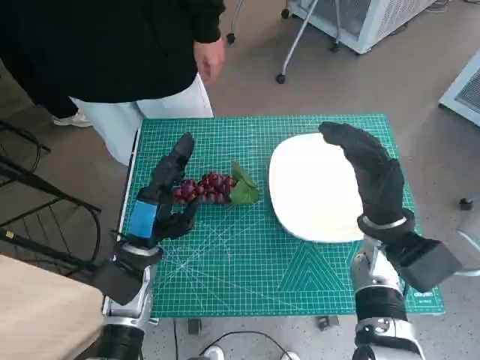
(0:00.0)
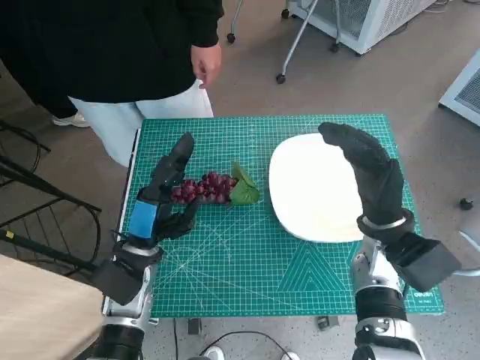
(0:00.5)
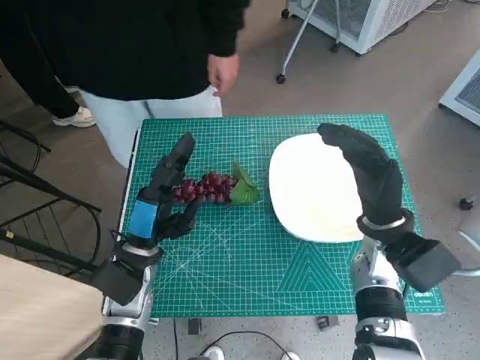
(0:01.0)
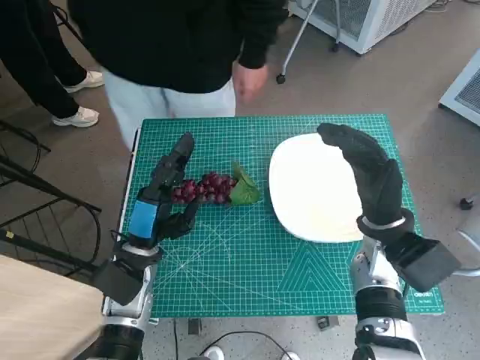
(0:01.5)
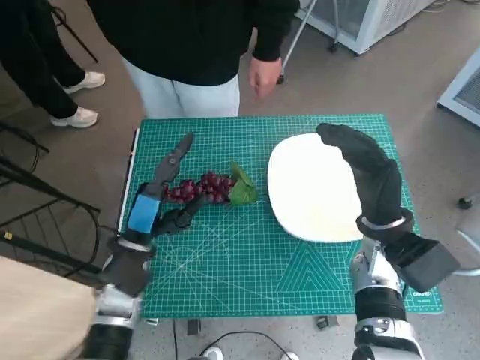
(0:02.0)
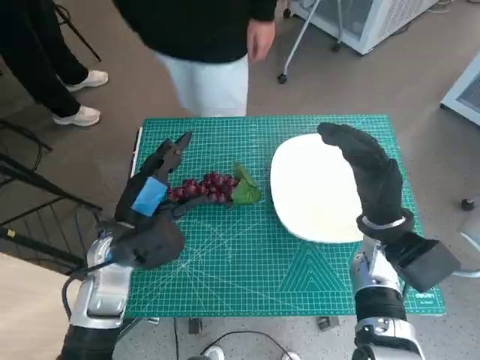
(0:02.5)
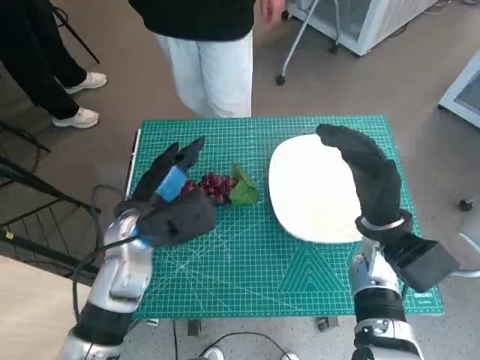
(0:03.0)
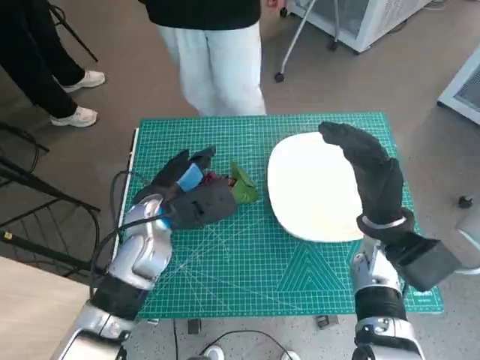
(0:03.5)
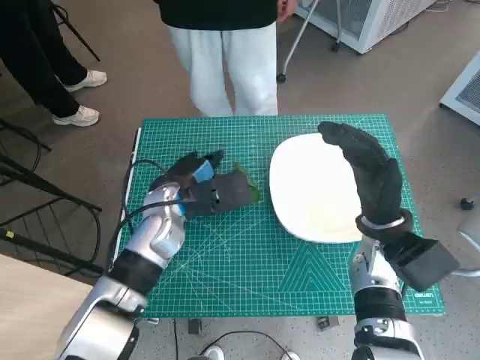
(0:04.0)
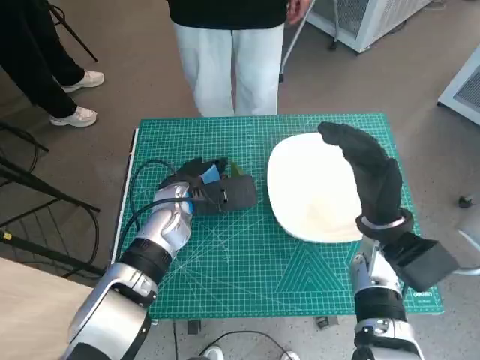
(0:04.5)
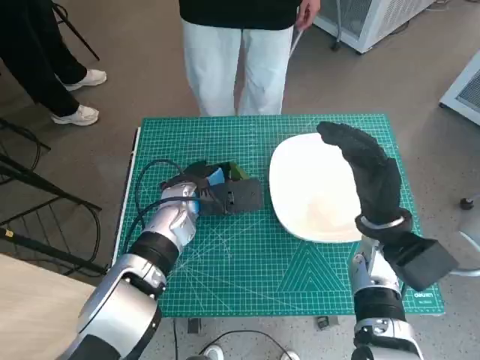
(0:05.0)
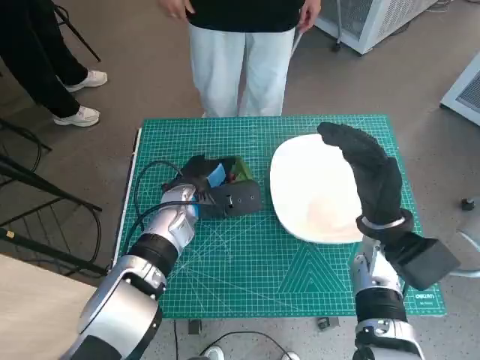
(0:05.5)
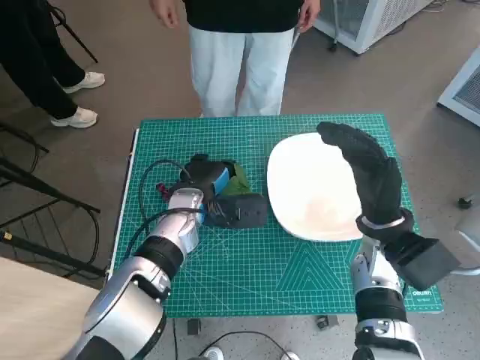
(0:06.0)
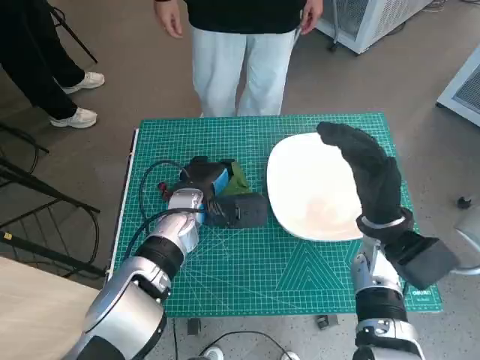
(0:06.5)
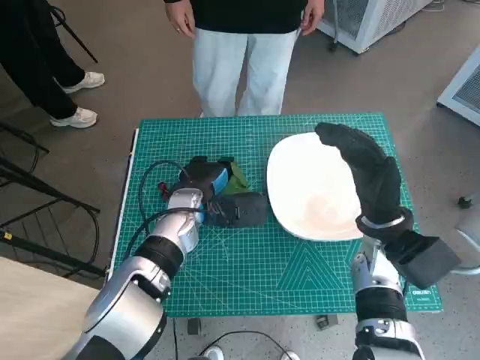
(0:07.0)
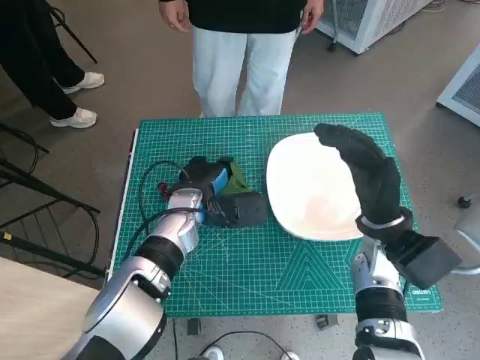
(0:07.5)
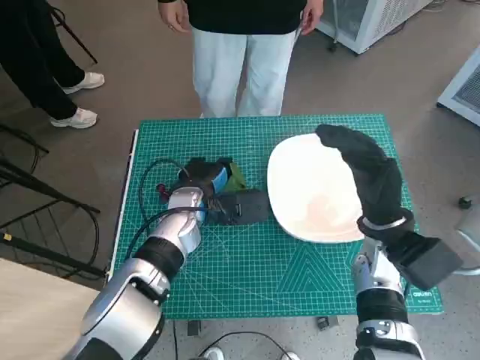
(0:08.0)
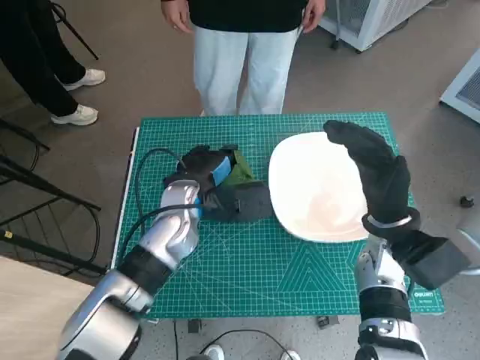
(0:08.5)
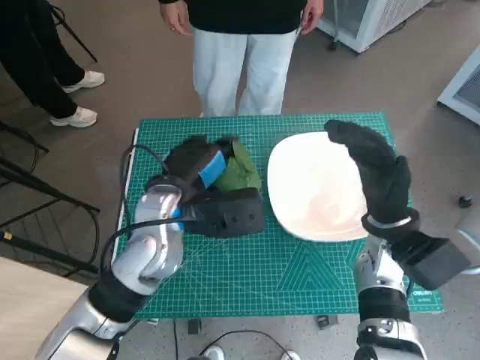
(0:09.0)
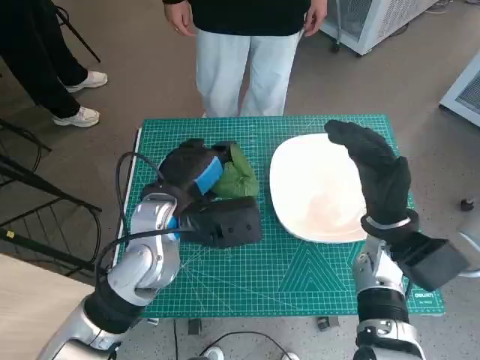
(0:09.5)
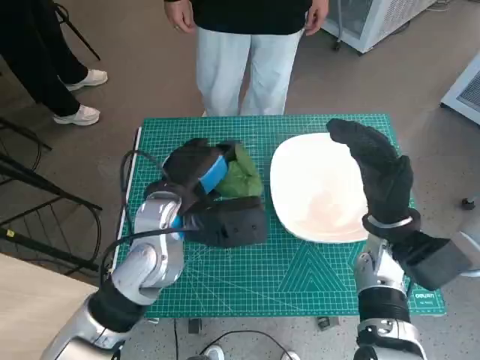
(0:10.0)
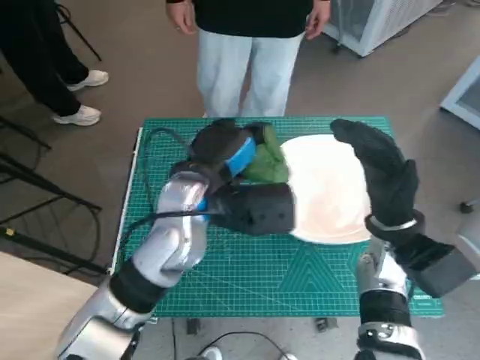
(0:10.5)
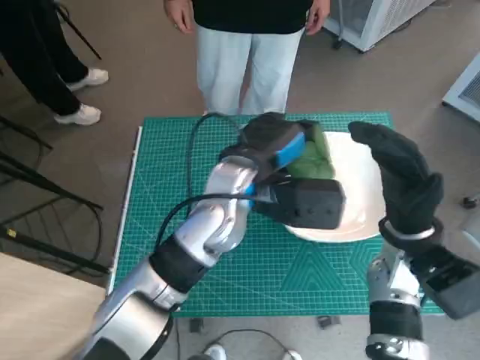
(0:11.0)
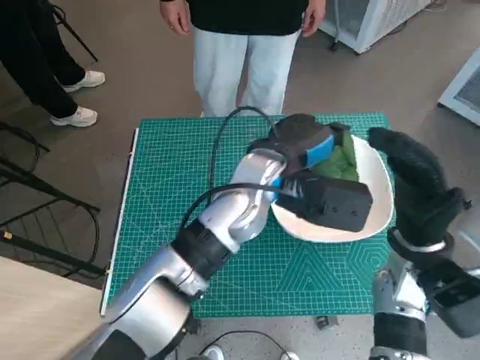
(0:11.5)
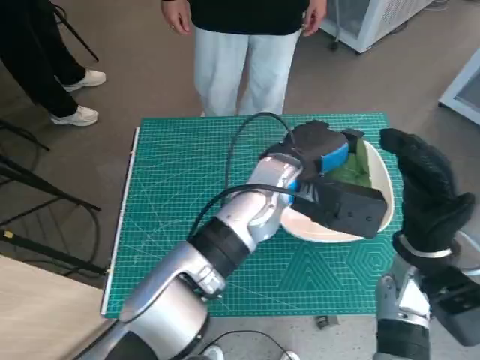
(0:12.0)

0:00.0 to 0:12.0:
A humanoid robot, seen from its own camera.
Task of the whole recording: Pick up the grapes and put them on the plate.
Step, 0:00.0 to 0:07.5: Grasp the grapes with left hand.
0:02.0 to 0:04.0: The left hand travels forward by some 10 cm.
0:04.0 to 0:06.0: There are only small adjustments of the hands.
0:06.0 to 0:08.0: Neither hand changes place.
0:08.0 to 0:10.0: The left hand moves upward and backward, about 10 cm.
0:10.0 to 0:12.0: The left hand is displaced to the right by roughly 15 cm.

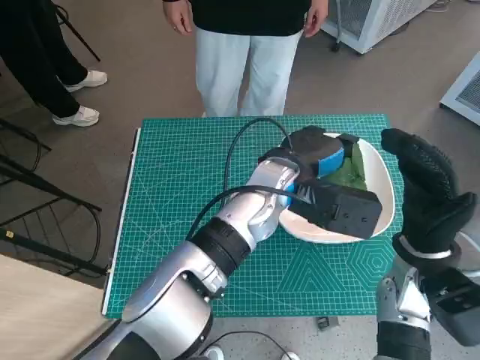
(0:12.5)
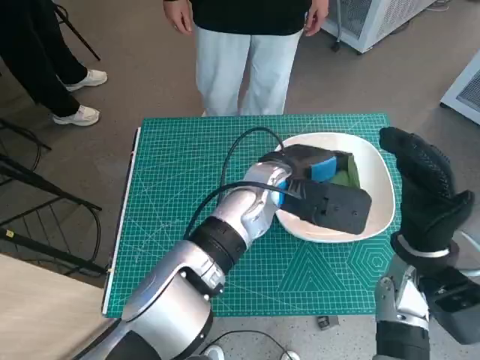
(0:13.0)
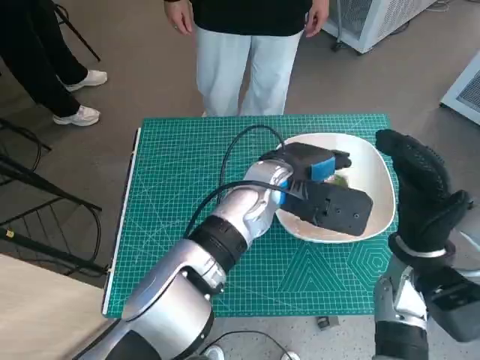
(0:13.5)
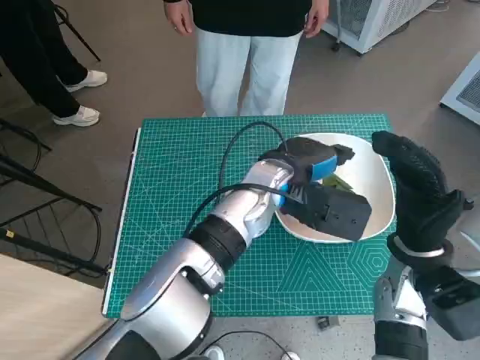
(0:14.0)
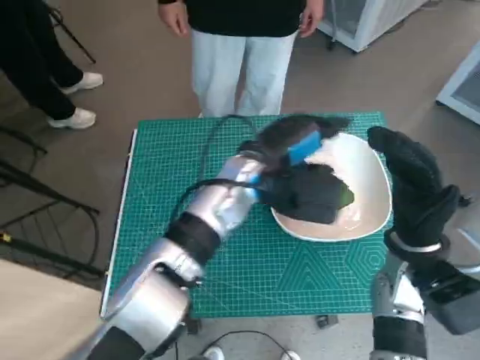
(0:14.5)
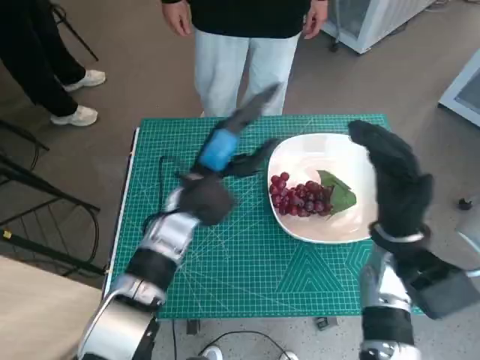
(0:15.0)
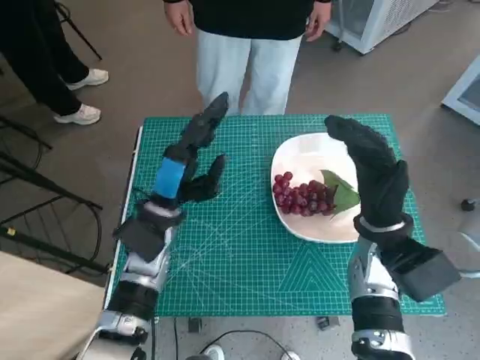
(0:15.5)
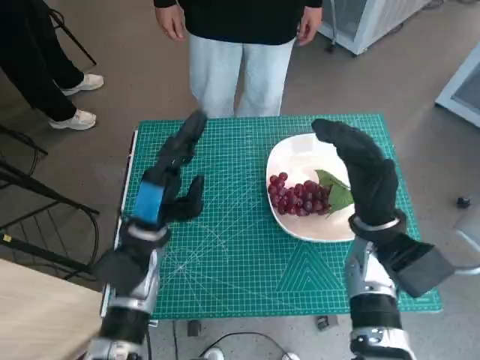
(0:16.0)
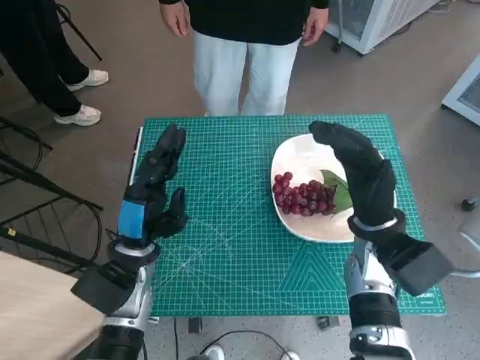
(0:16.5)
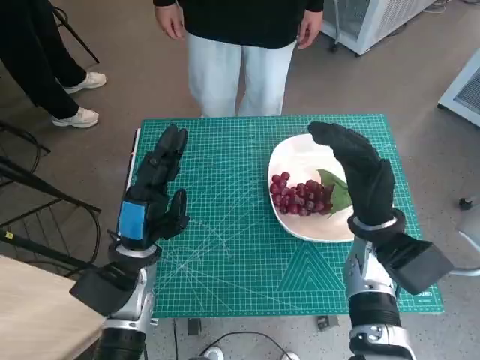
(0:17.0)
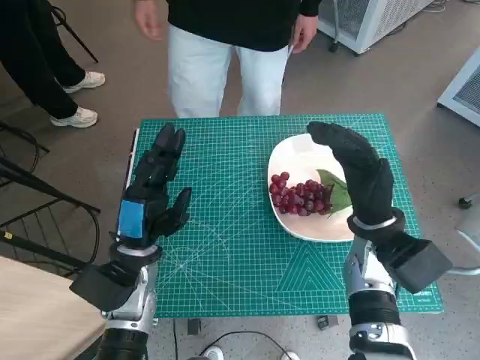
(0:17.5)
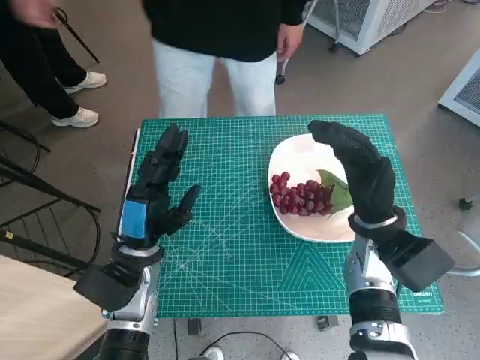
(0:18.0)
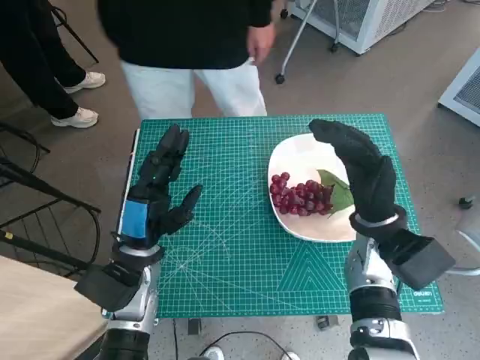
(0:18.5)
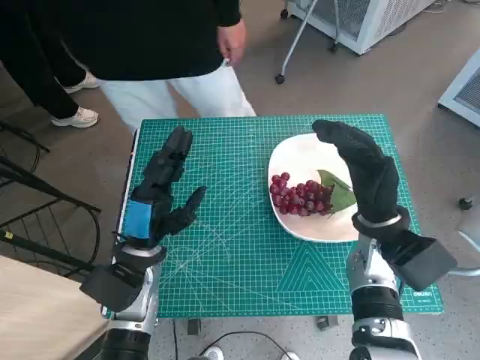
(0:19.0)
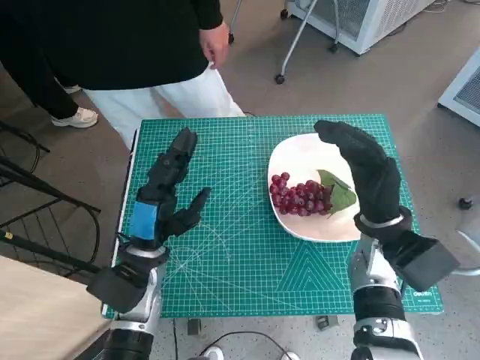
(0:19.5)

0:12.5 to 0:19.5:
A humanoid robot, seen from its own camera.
Task of the whole recording: Pick up the grapes and put them on the plate.
0:14.5 to 0:16.0: The left hand heads to the left, downward and backward, covering some 20 cm.
0:16.0 to 0:17.5: The hands stay close to where they were, moving slightly.

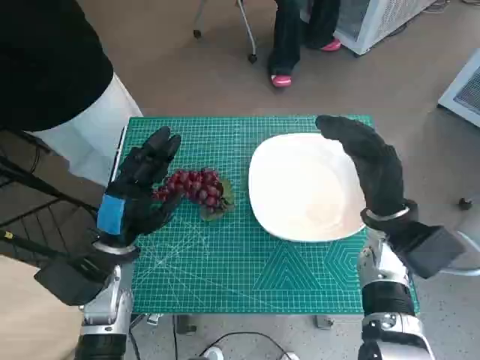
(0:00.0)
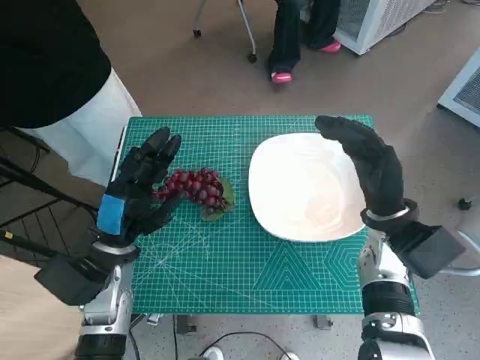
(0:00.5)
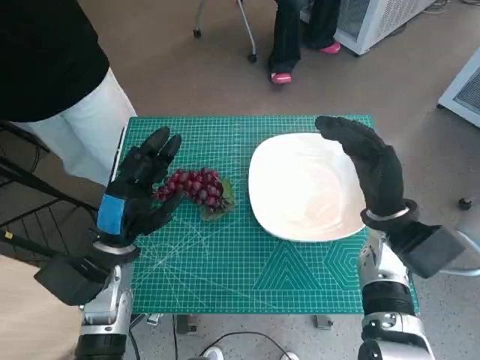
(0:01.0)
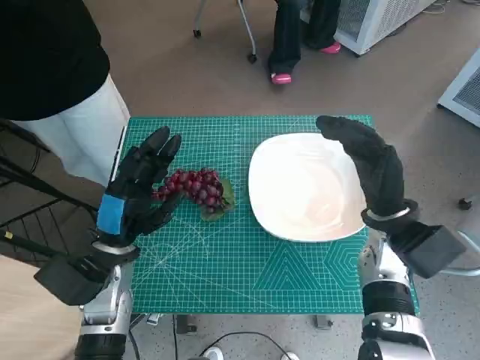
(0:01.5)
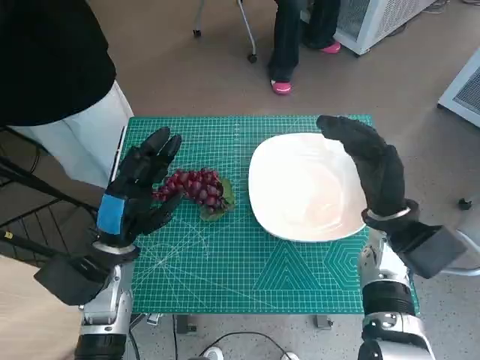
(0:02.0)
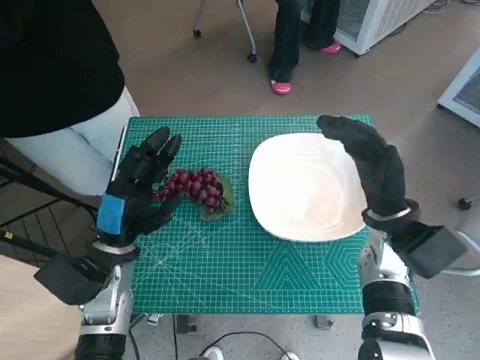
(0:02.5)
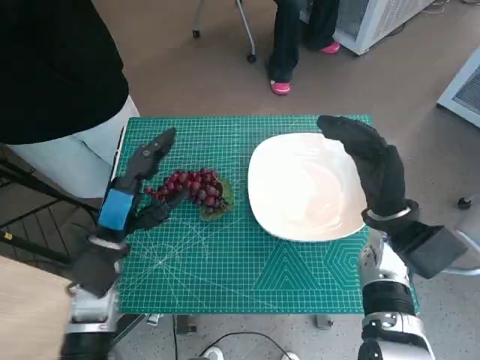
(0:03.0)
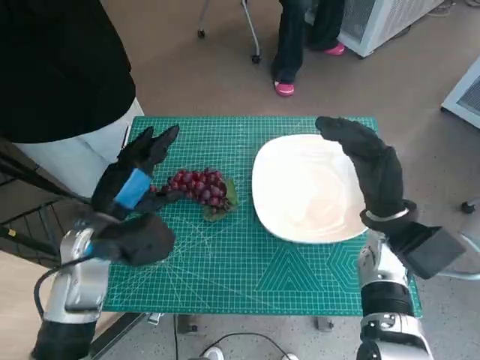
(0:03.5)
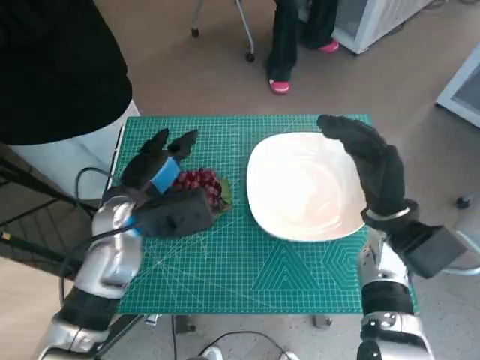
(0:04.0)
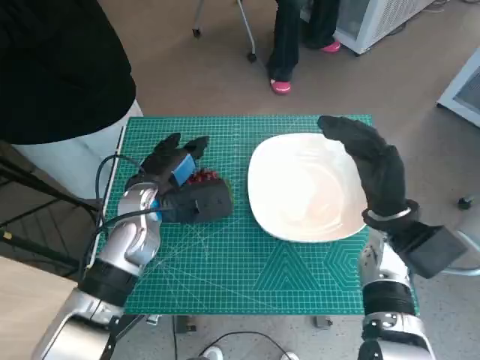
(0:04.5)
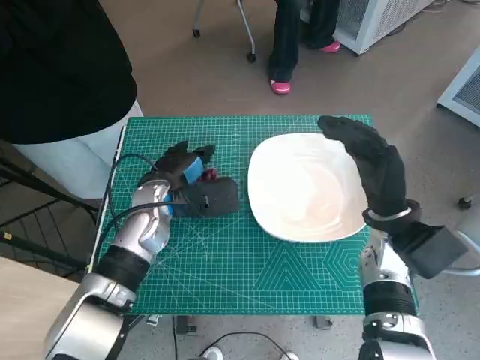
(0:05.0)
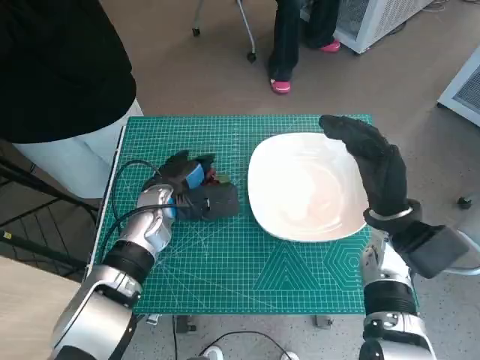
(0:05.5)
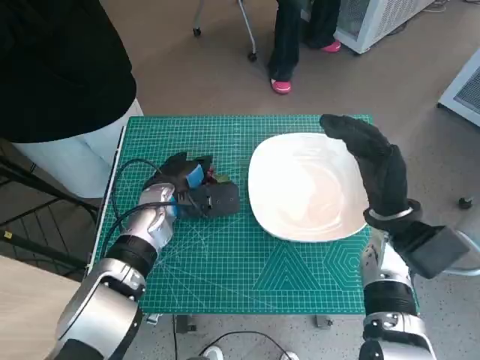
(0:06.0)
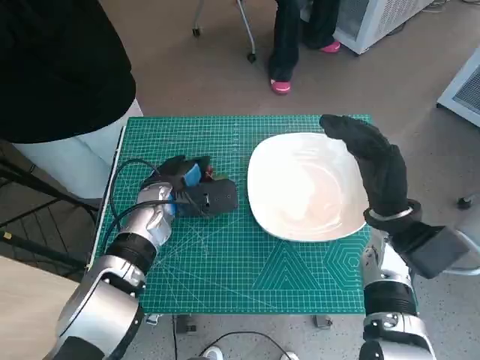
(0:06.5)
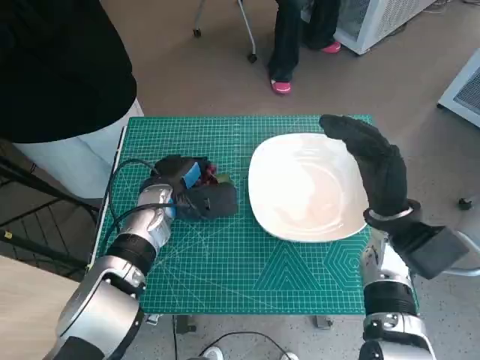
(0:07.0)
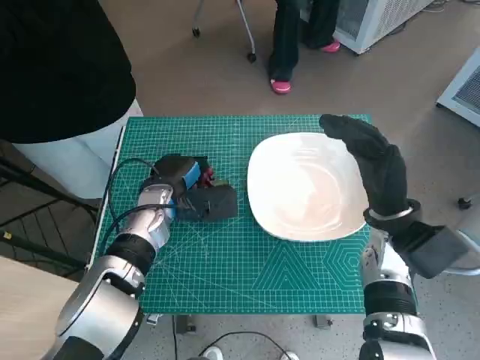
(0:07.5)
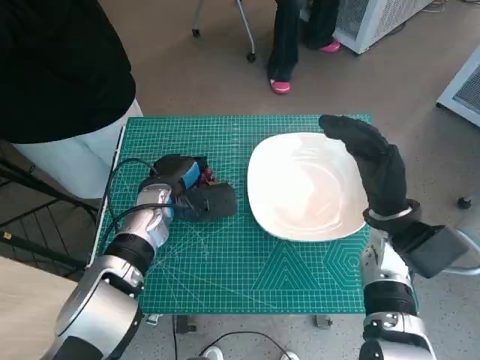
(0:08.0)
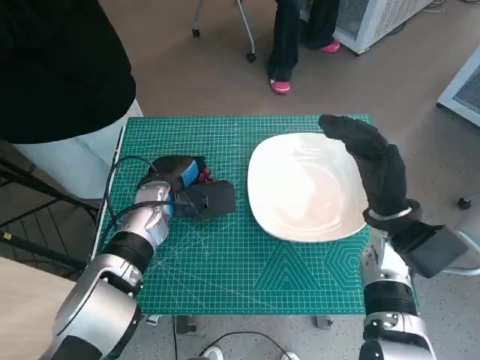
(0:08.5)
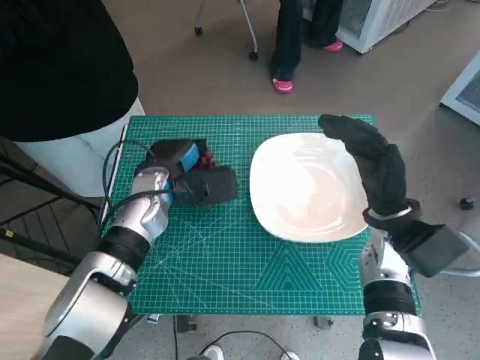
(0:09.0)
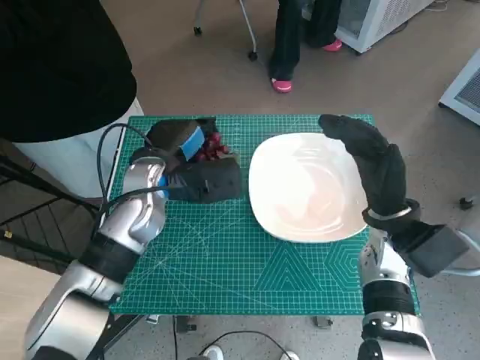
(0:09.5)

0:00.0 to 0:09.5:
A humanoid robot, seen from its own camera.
Task of the whole recording: Pick up the grapes and put them on the plate.
Step, 0:00.0 to 0:08.5: Grasp the grapes with left hand.
0:02.0 to 0:04.0: The left hand heads upward, covering roughly 5 cm.
0:04.0 to 0:05.5: The left hand heads forward, covering about 5 cm.
0:05.5 to 0:07.5: The hands move only a little.
0:07.5 to 0:09.5: The left hand moves upward, roughly 10 cm.
